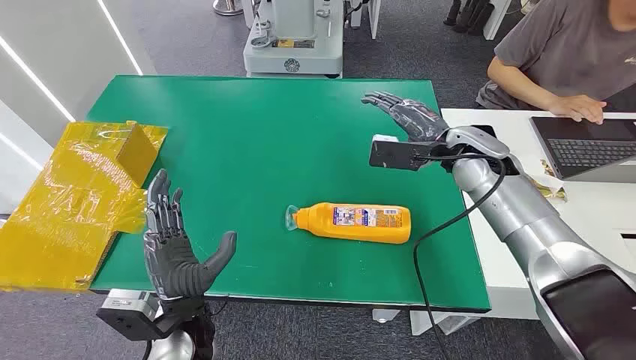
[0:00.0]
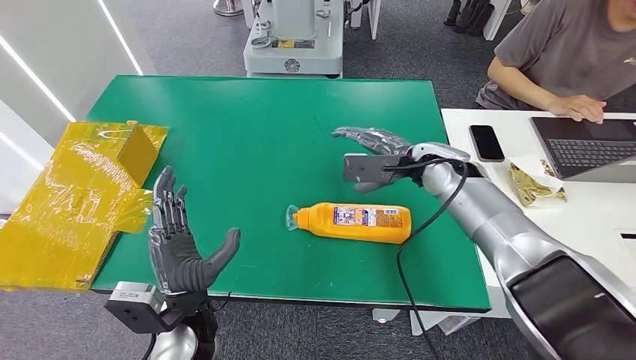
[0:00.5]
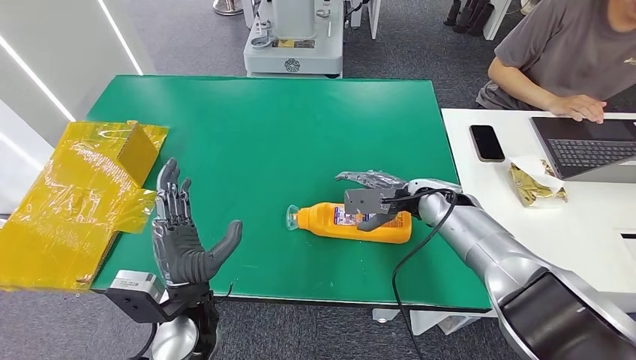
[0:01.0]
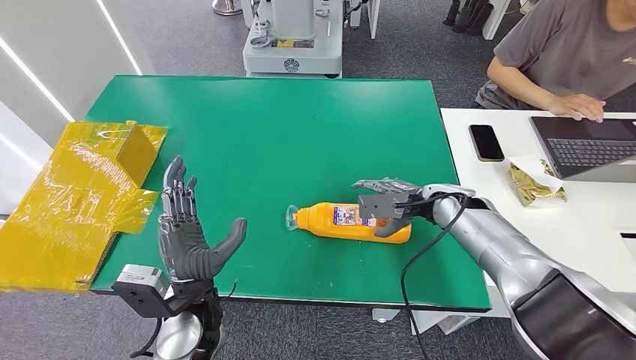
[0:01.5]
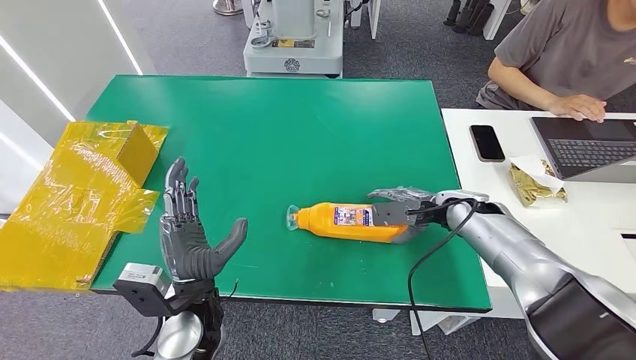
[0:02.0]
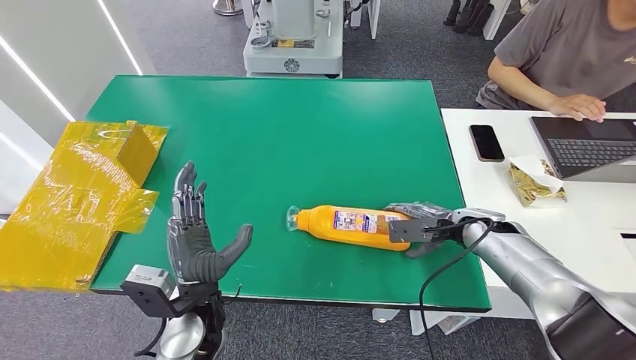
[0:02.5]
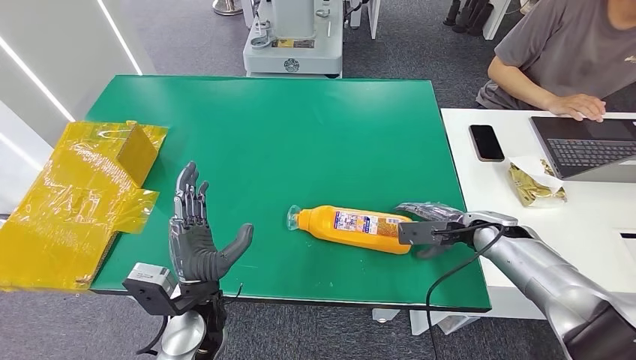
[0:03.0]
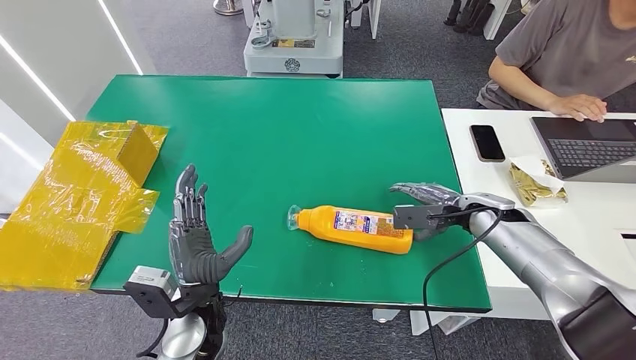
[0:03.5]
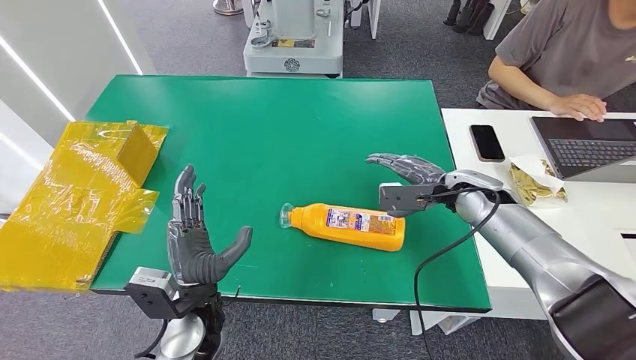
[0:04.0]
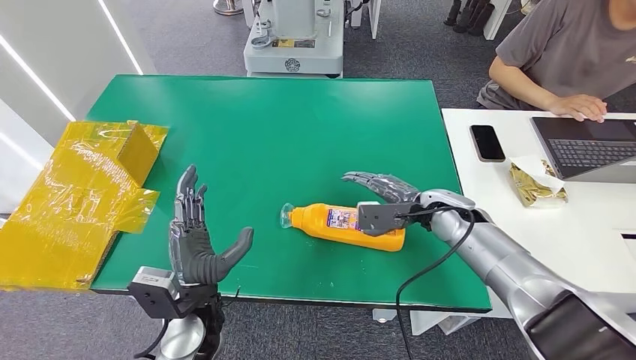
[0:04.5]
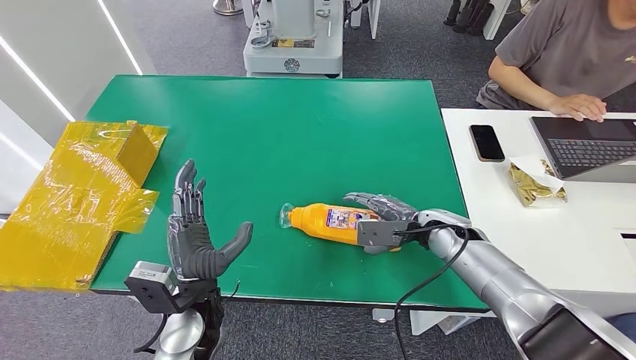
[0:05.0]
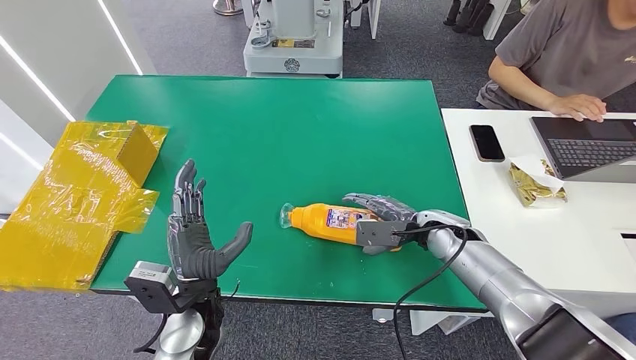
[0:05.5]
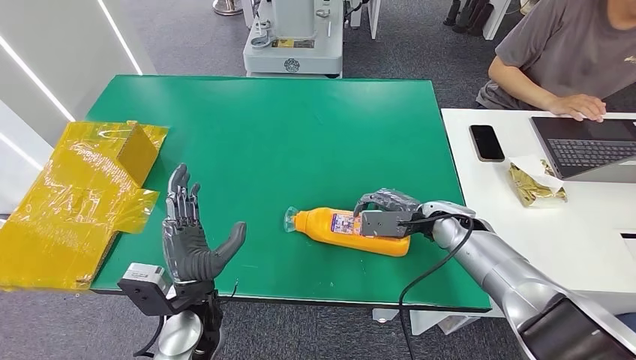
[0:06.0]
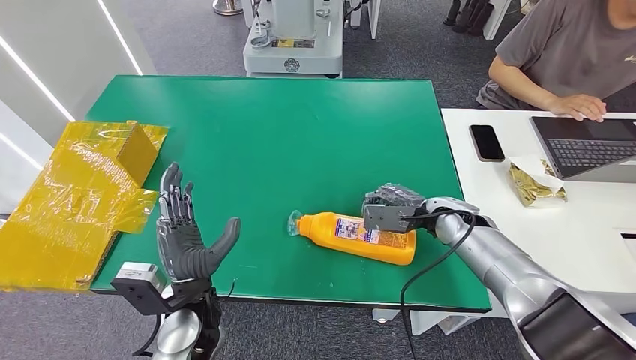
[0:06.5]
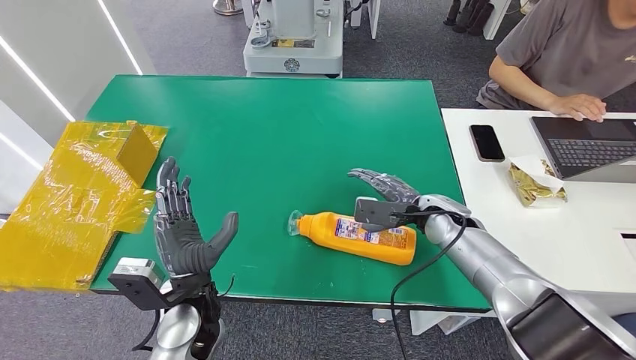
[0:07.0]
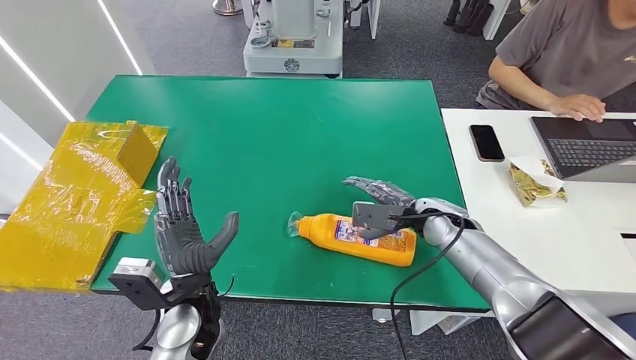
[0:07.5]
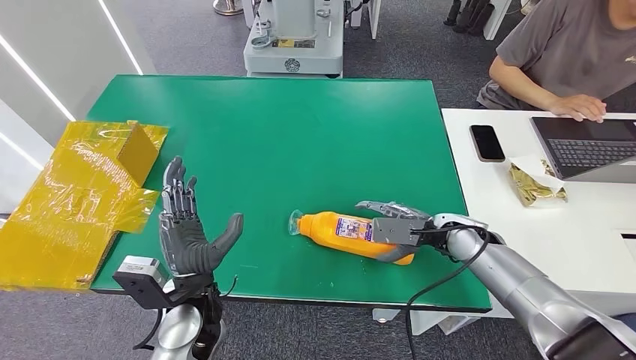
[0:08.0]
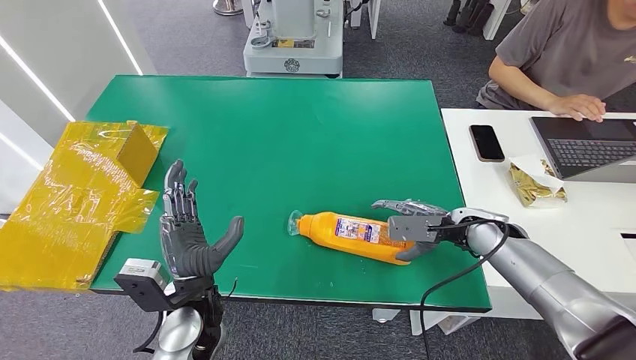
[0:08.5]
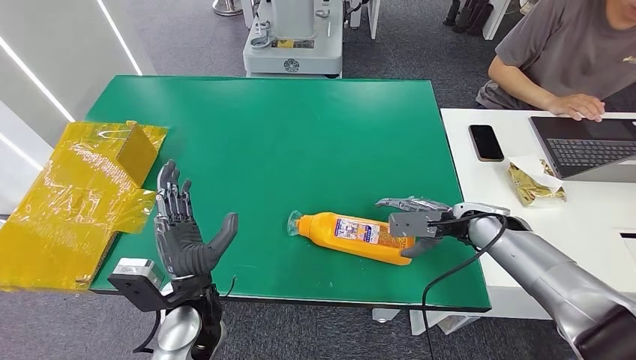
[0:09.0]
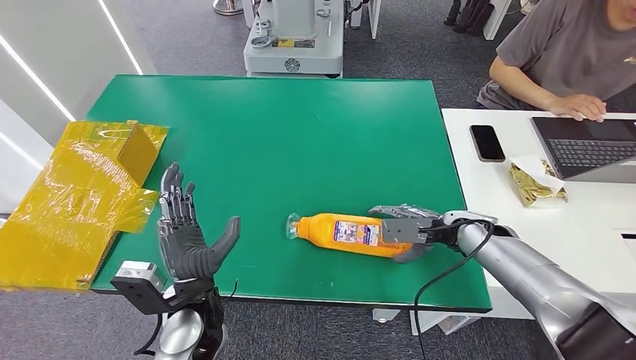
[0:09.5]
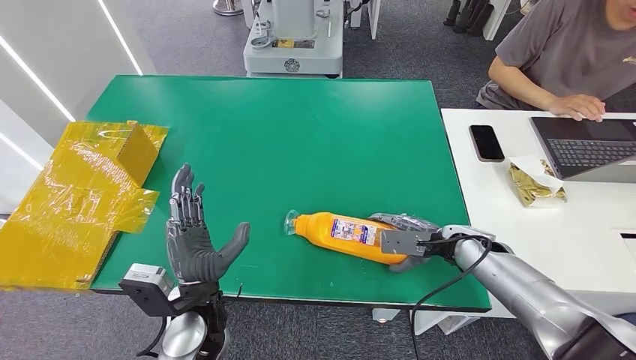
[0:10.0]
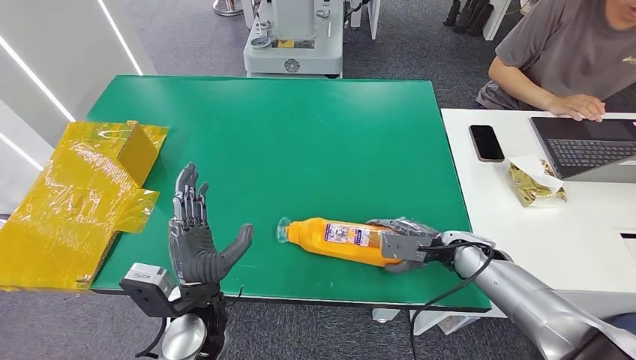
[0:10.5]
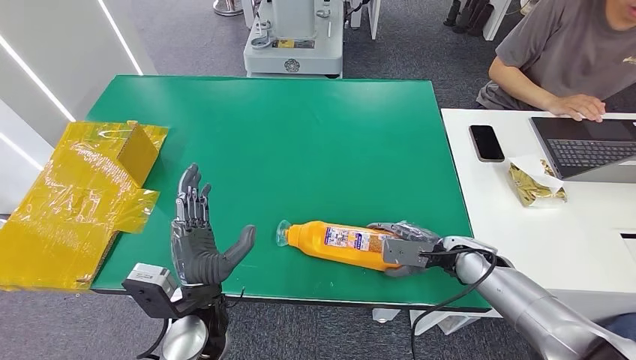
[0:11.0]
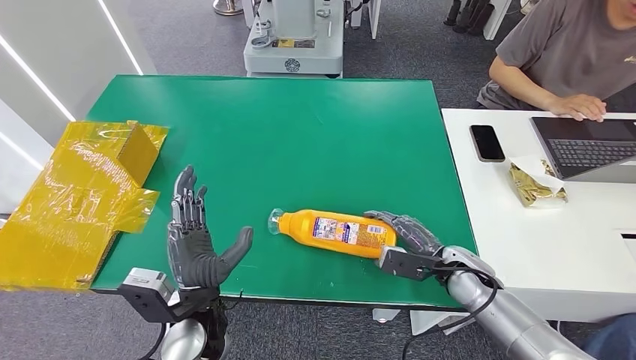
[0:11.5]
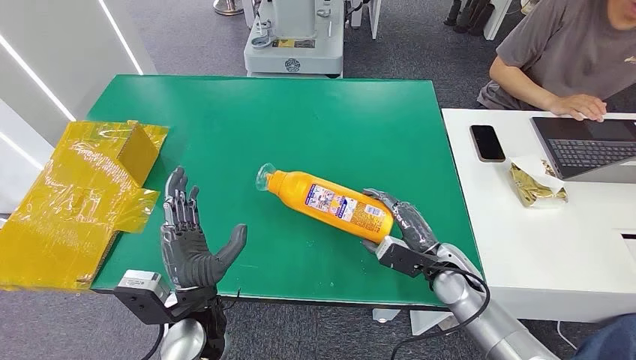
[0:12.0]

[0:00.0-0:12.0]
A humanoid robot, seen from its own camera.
0:04.0 to 0:06.0: The right hand is displaced downward by roughly 5 cm.
0:06.0 to 0:08.0: The hands make only small movements.
0:08.0 to 0:10.0: The hands move only a little.
0:10.0 to 0:12.0: The right hand travels to the left by about 5 cm.

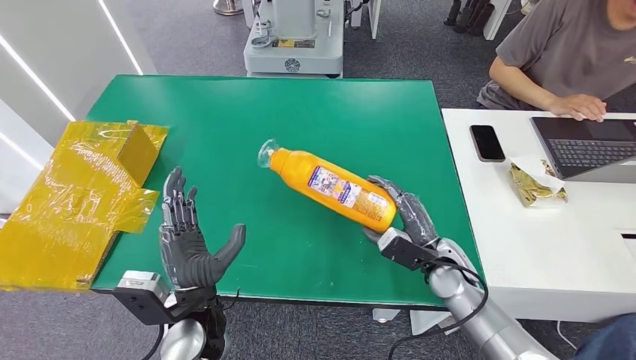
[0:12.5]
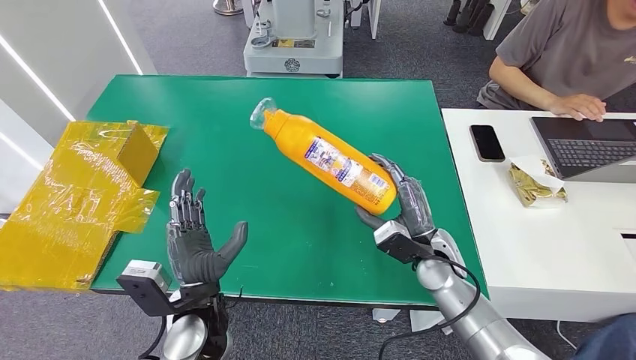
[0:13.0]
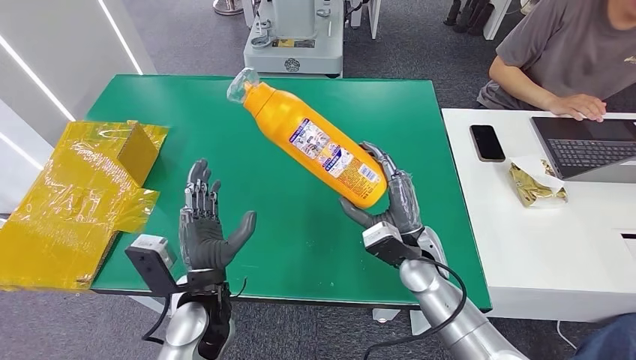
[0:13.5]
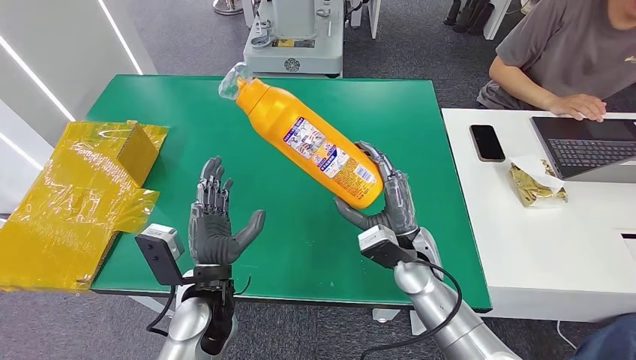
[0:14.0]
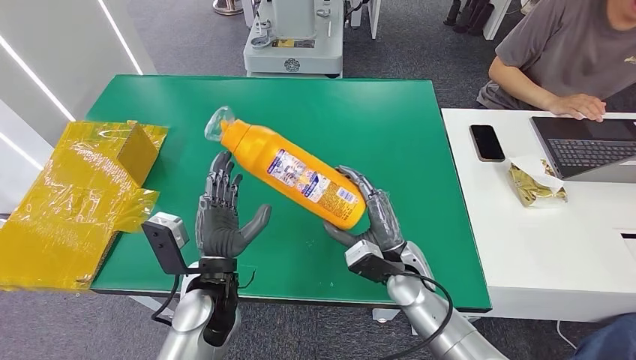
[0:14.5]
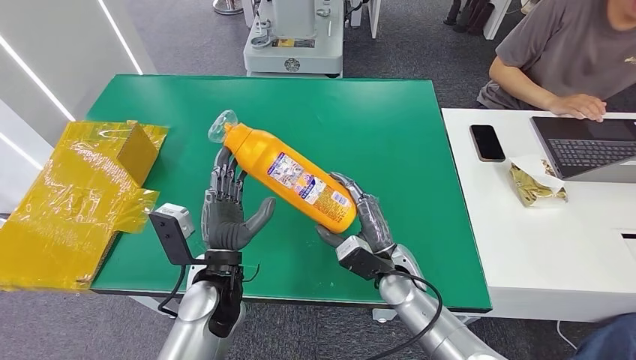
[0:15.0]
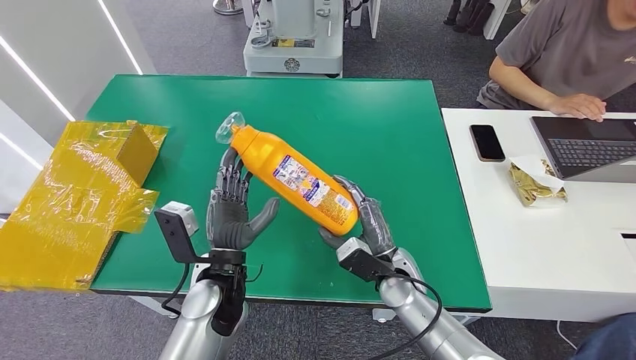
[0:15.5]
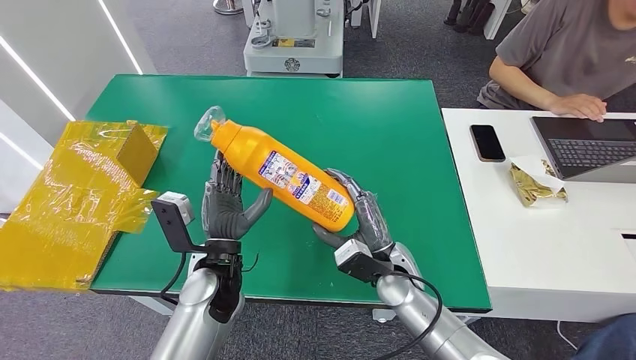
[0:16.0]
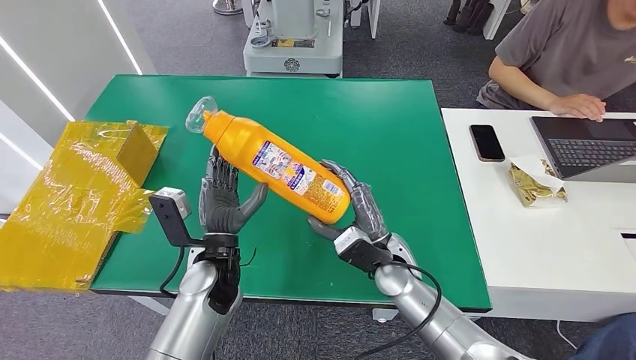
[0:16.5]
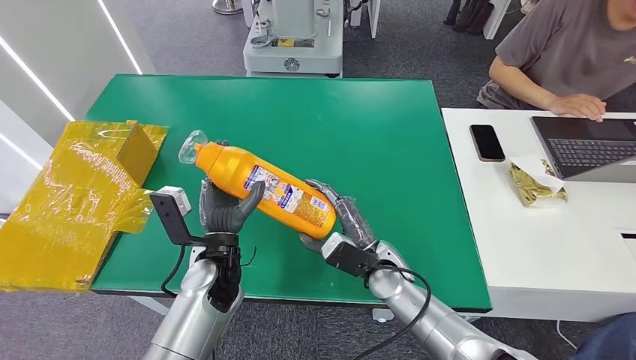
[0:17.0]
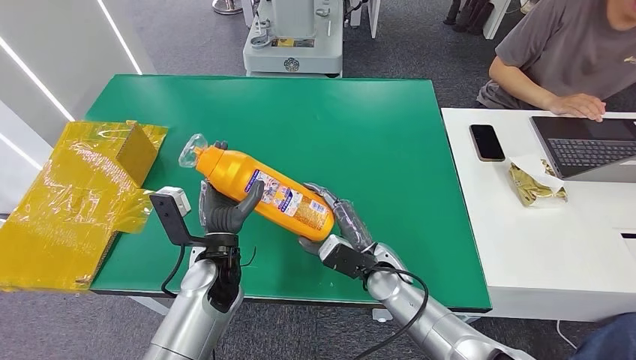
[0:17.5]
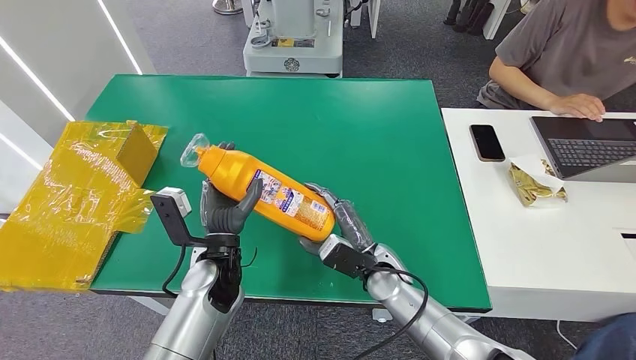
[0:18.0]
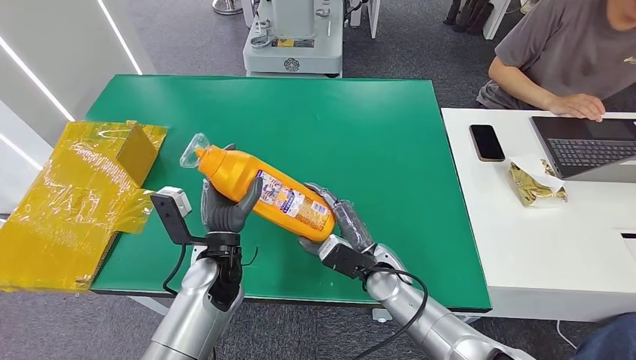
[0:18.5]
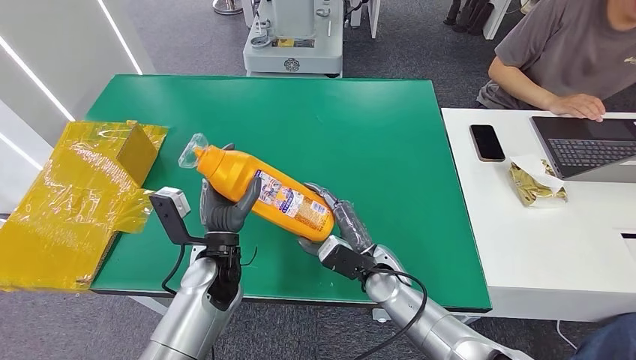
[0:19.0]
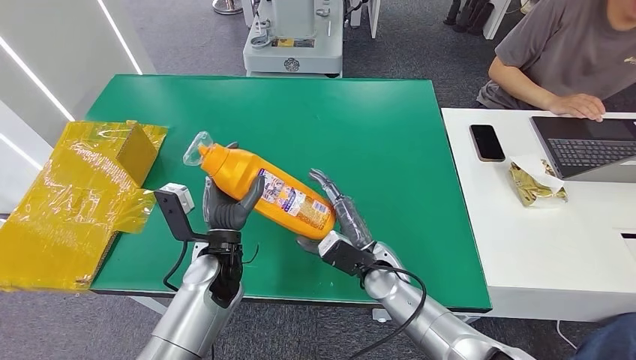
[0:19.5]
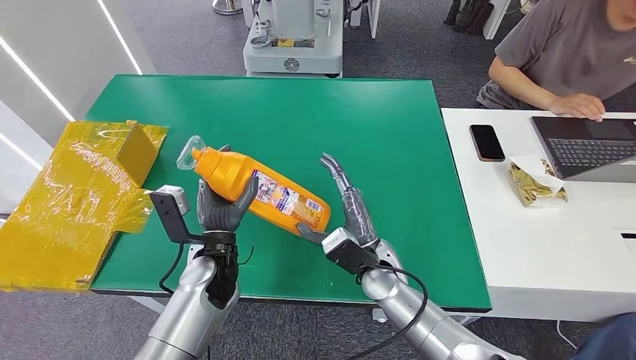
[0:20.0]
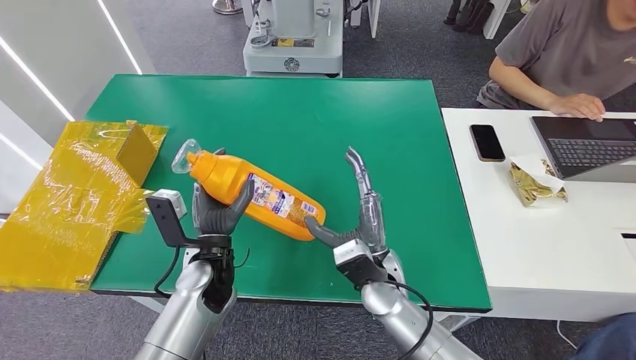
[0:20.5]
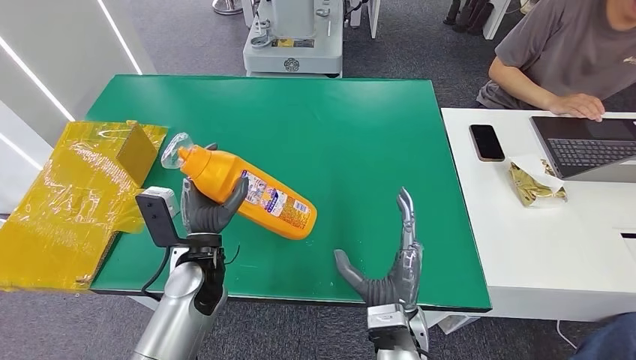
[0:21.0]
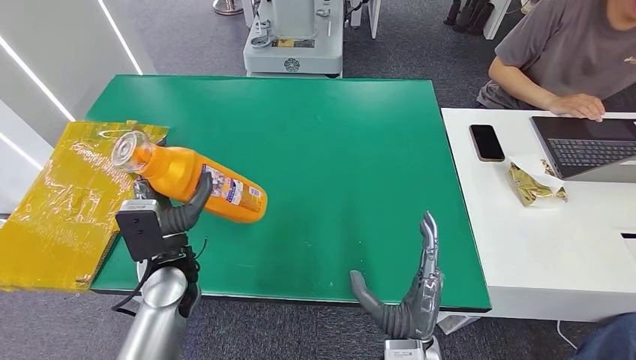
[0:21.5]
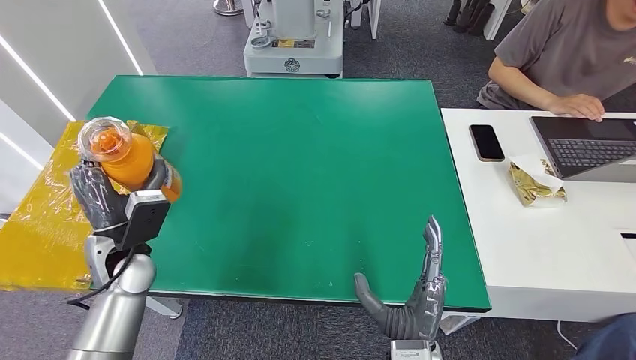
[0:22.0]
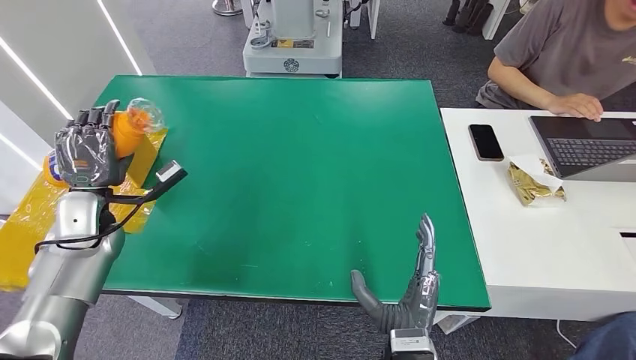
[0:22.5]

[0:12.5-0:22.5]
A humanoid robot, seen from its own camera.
0:12.5 to 0:14.5: The right hand shifts roughly 10 cm to the left.
0:14.5 to 0:18.5: The hands move only a little.
